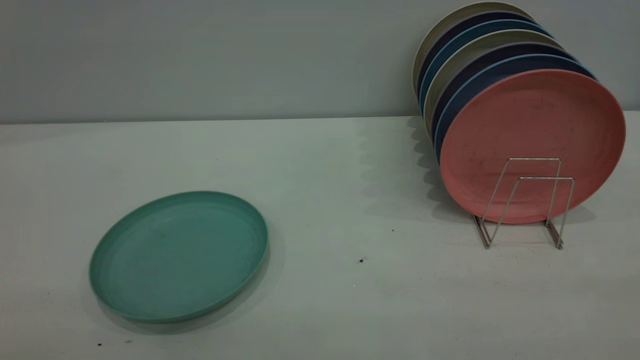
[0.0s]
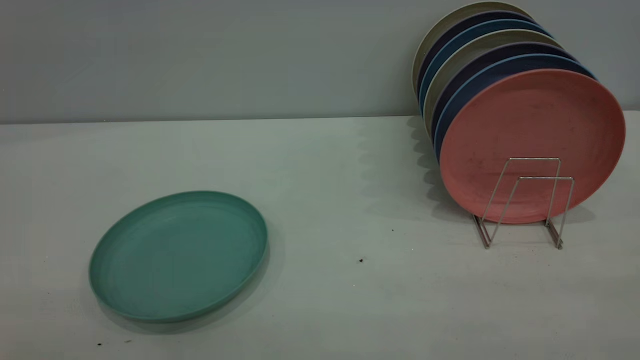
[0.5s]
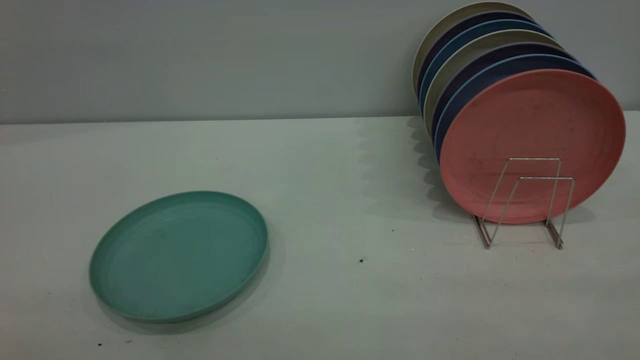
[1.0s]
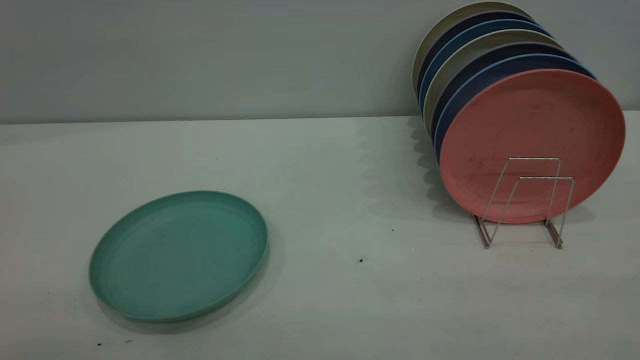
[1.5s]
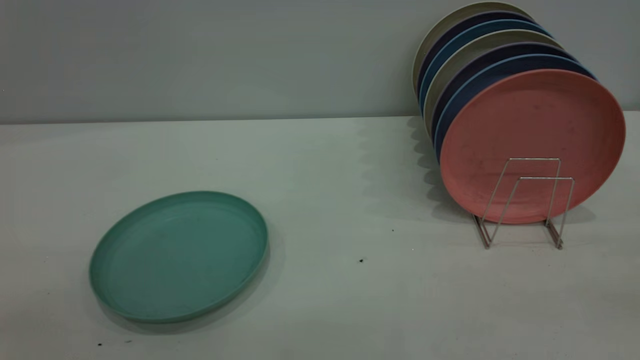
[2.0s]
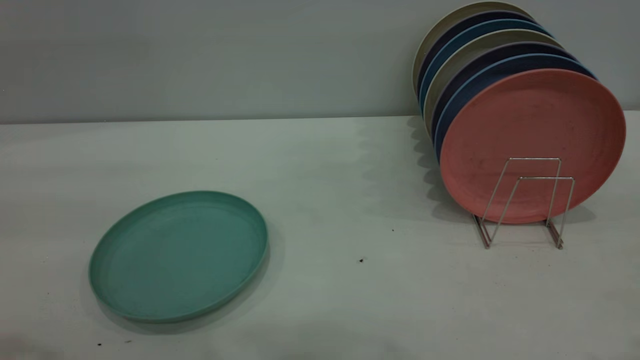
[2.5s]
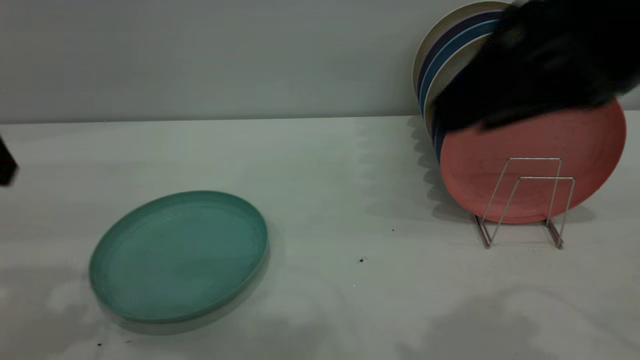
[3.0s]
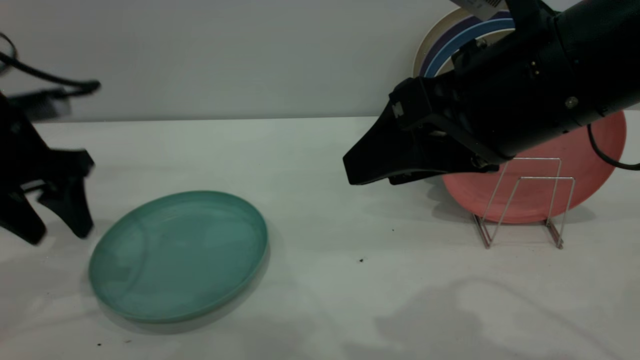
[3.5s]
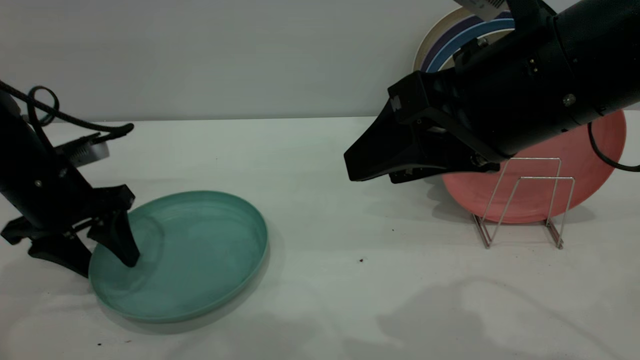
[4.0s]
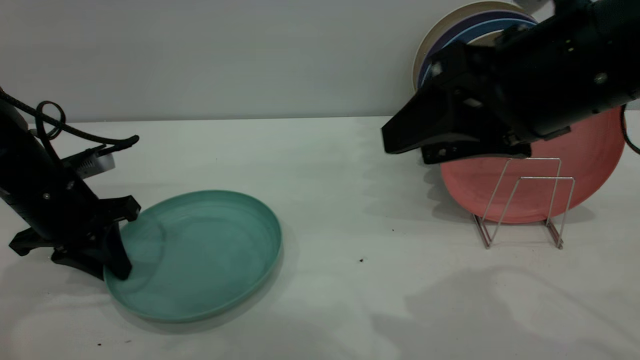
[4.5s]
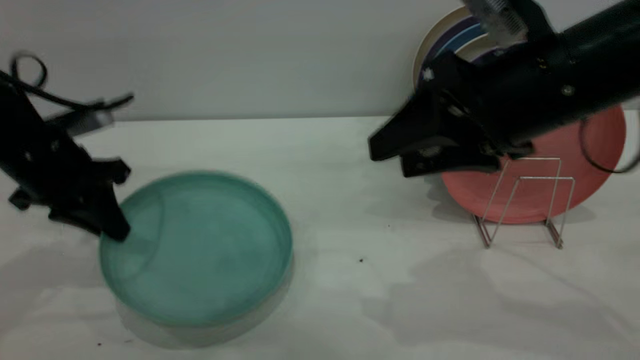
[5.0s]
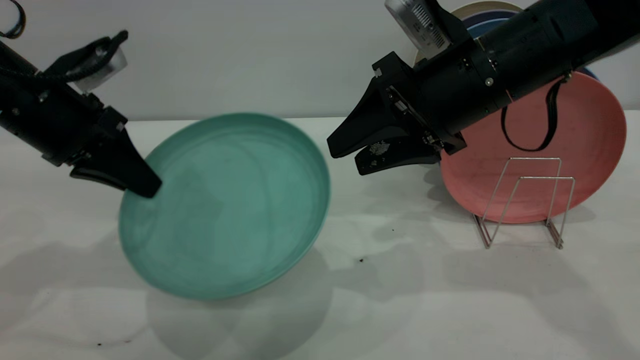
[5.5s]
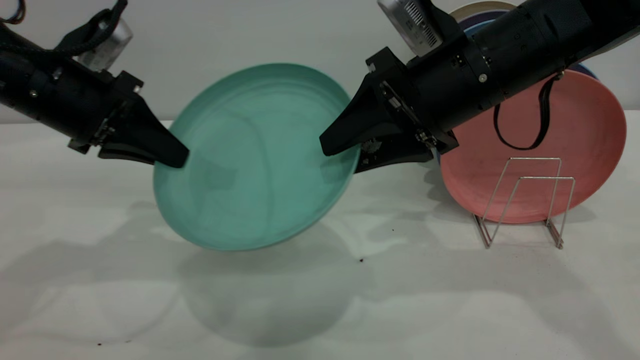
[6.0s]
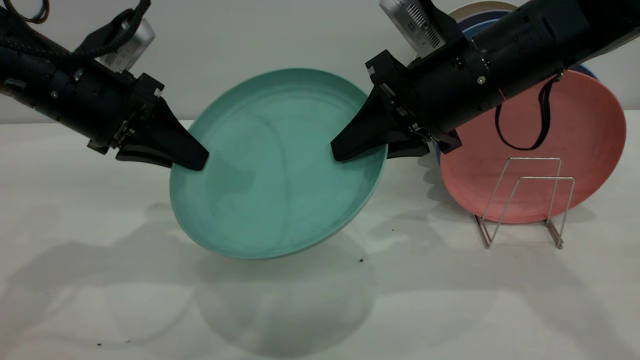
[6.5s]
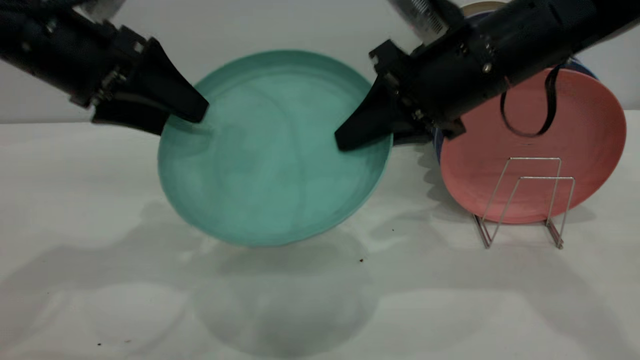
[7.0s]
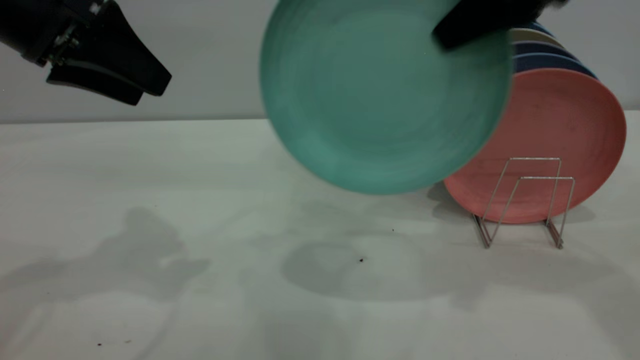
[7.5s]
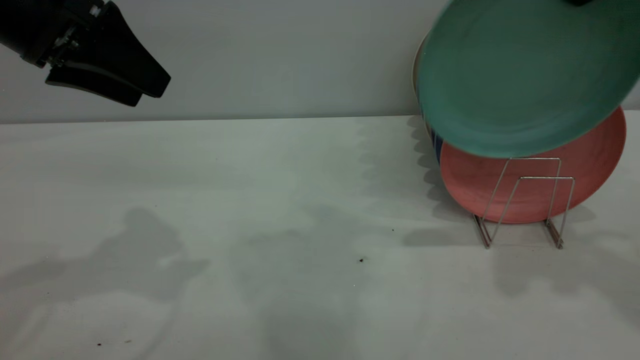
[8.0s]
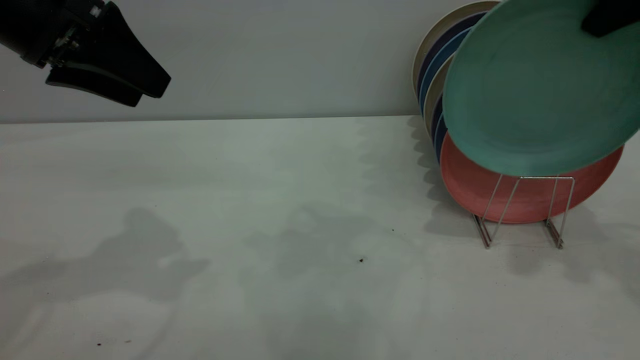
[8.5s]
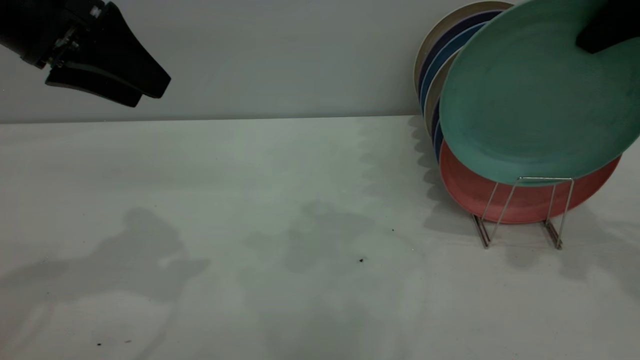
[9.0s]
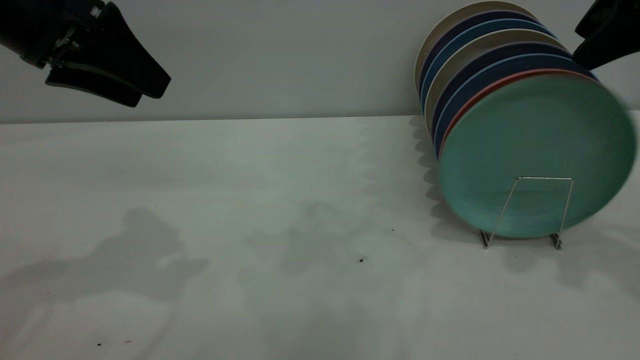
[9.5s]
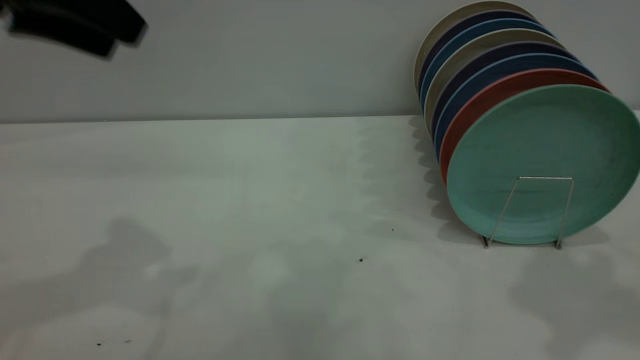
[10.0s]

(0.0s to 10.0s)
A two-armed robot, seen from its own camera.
Task of the whole recording: the left gripper grasp the green plate, the left gripper pass the green plate to the right gripper, and the right gripper place the green plate on the plate rack.
Step, 0.0s - 5.0s: Pick up the plate with the left gripper.
Step, 5.5s - 7.0s: Pass the plate from the left gripper to the right gripper.
Step, 7.5s - 9.5s: Place the plate on the shelf.
2.0s - 4.0s: The left gripper goes approximately 40 cm forward and downward. Meanwhile the right gripper shifts about 30 cm forward, to the left and downward, and opens its fingers.
4.0s - 6.0s: The left gripper goes approximately 10 cm upward, and closes, while the right gripper heads forward, covering approximately 10 cm.
6.0s - 8.0s: The left gripper shifts about 10 cm upward, and opens up, while the right gripper goes approximately 20 cm upward and to the right, and closes.
8.0s - 10.0s: The right gripper moves backward and upward, roughly 10 cm, and opens. Meanwhile the left gripper is displaced upward by about 5 cm.
